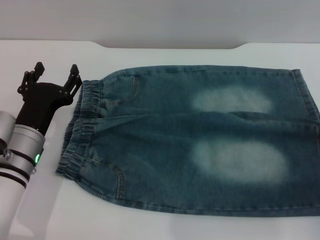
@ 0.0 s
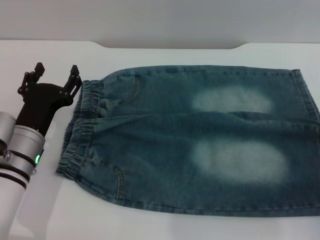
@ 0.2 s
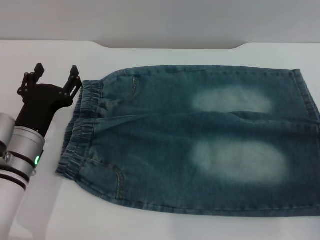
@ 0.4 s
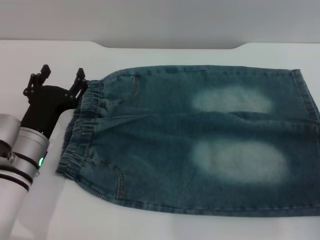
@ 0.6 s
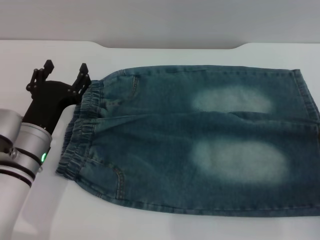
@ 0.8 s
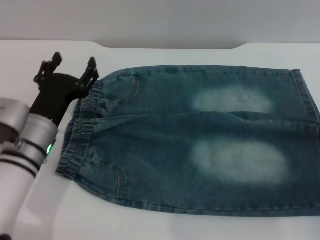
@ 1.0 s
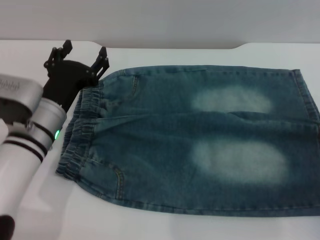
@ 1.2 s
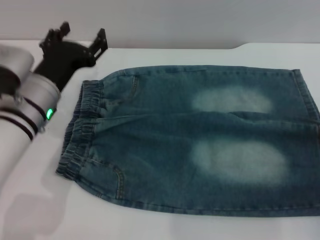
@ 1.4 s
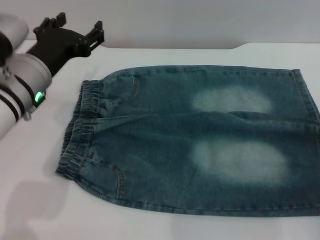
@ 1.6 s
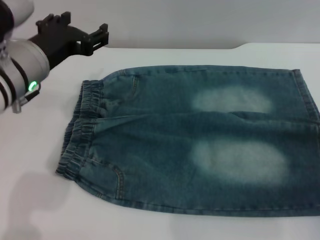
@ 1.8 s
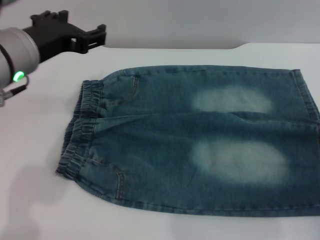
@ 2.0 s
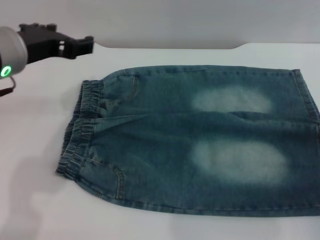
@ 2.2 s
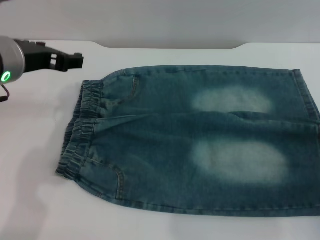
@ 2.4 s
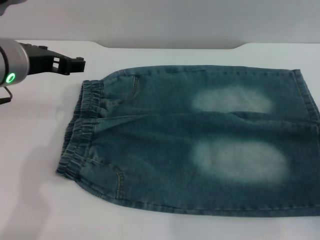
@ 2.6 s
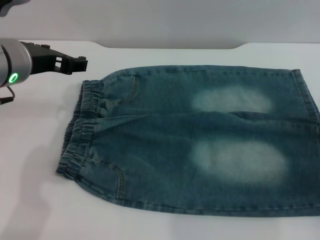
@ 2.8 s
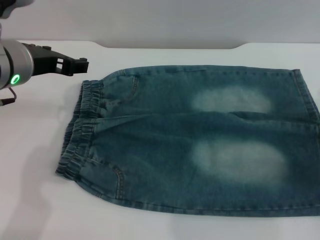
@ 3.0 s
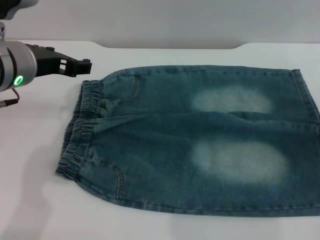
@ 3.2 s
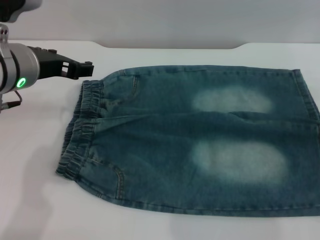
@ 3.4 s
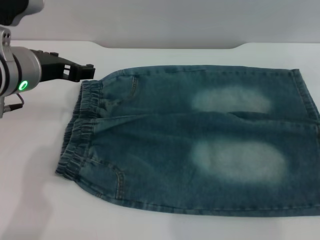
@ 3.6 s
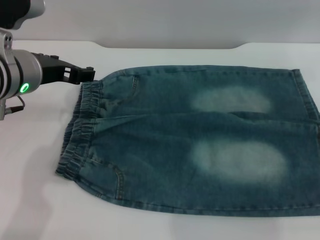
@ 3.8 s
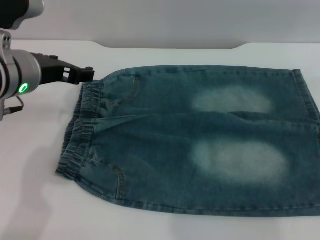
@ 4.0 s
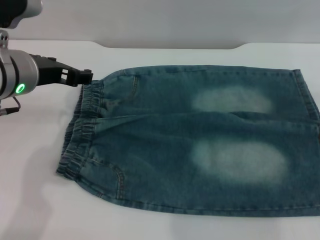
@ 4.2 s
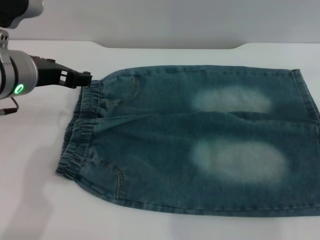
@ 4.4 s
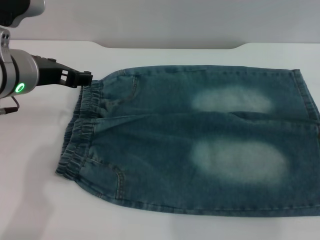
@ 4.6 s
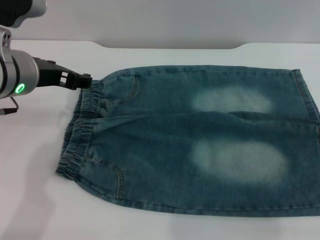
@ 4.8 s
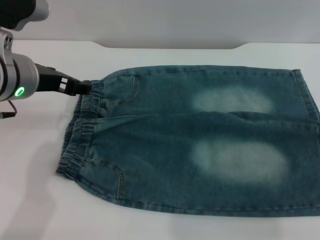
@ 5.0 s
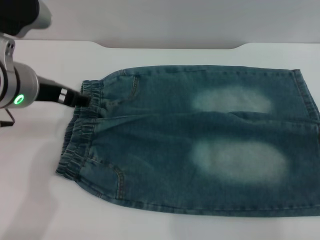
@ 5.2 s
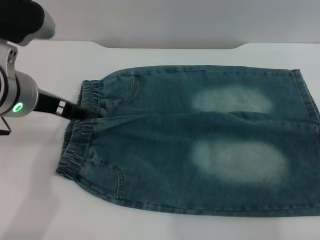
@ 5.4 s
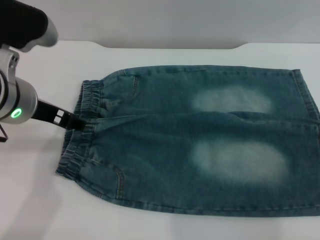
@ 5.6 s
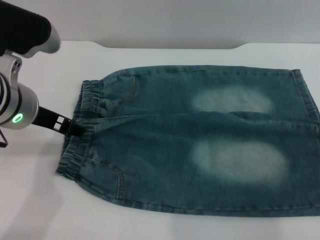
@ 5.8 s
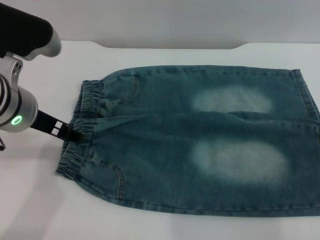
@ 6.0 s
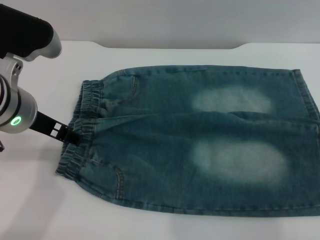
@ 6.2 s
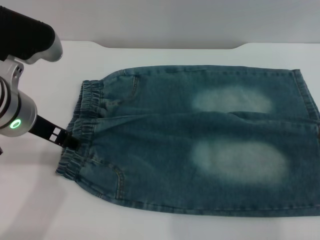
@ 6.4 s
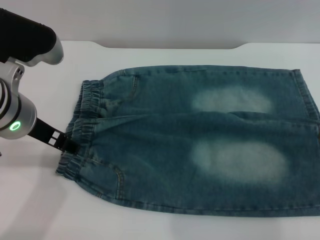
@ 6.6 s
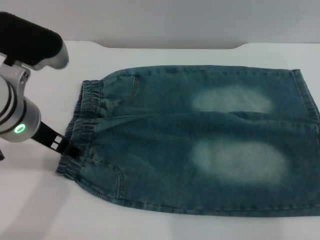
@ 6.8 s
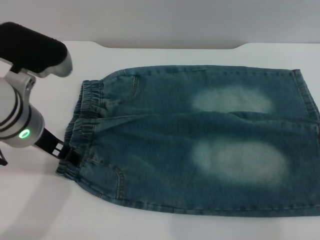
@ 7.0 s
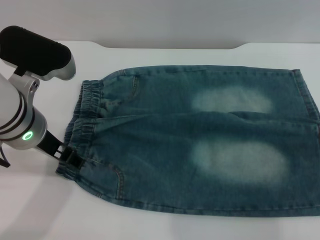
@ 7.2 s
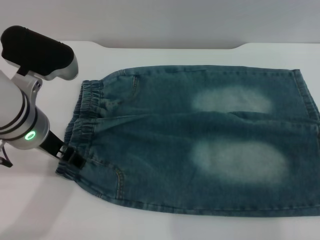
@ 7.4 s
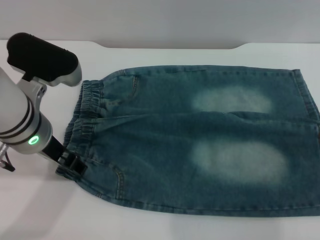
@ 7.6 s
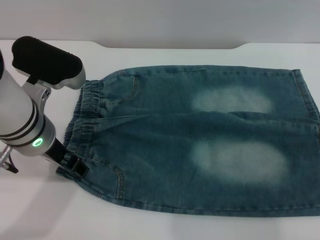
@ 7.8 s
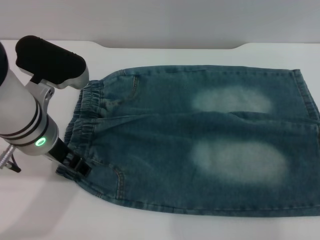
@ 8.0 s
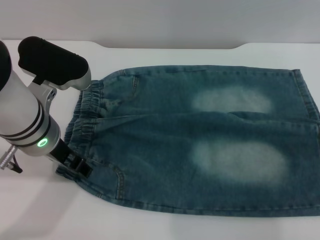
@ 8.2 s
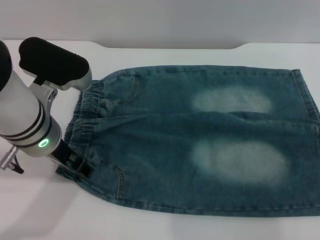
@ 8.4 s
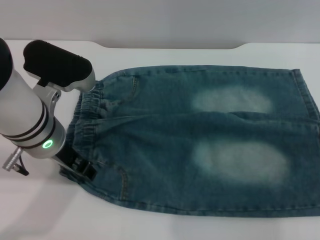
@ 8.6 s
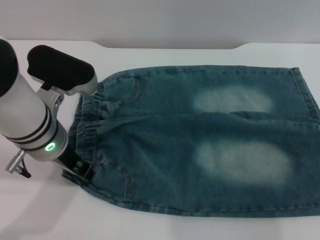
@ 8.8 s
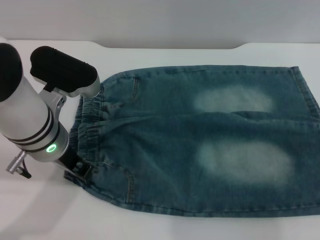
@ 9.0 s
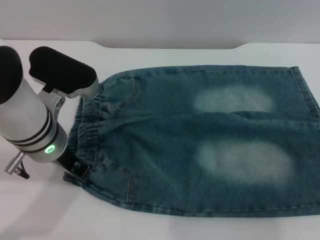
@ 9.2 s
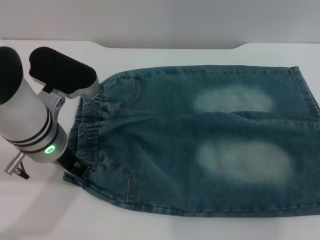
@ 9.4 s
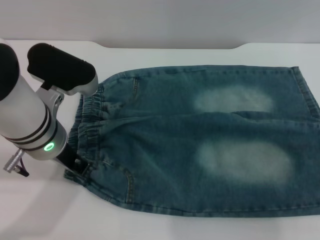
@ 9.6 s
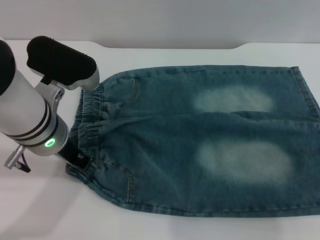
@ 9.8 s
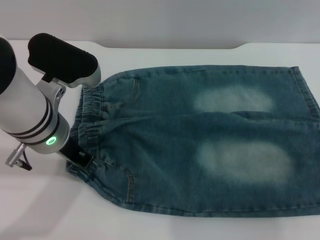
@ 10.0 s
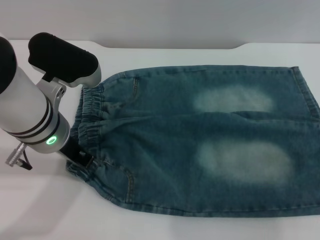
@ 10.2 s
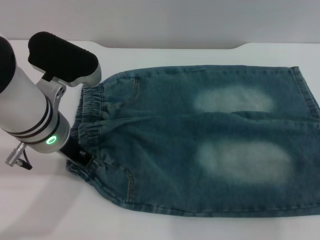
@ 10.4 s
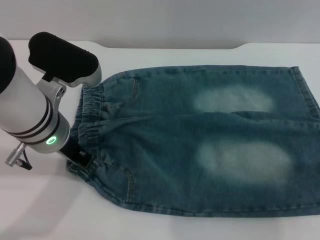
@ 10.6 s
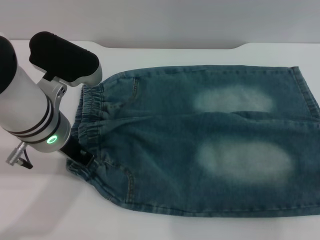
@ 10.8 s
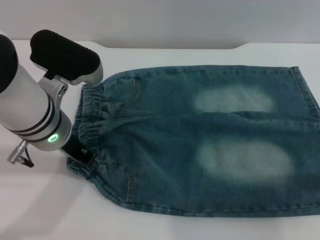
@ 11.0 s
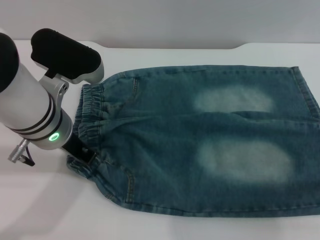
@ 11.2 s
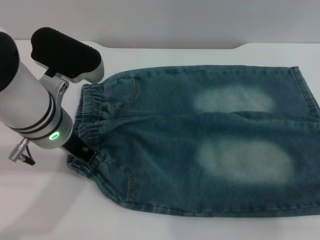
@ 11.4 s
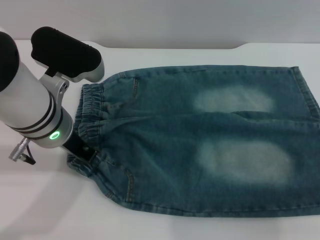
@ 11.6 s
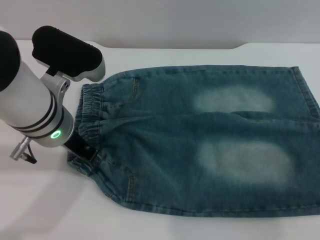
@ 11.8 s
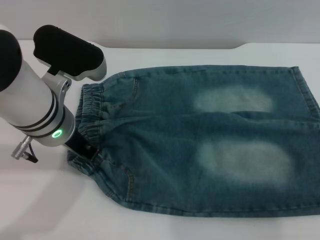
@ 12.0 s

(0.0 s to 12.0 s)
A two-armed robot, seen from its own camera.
0.0 s - 1.6 s: The left gripper goes some 10 cm upward.
1.6 s - 3.0 s: The left gripper is displaced upward by roughly 5 cm.
6.0 s - 9.0 s: The grippers stay close to where they were, moving slightly.
9.0 s - 10.4 s: The left gripper closes.

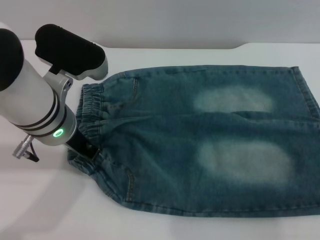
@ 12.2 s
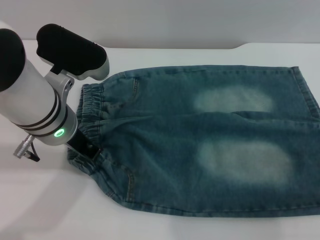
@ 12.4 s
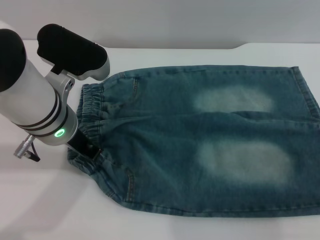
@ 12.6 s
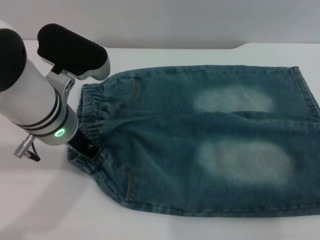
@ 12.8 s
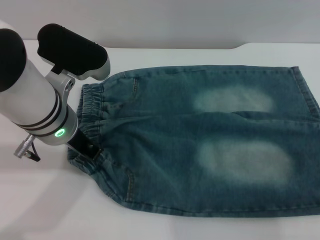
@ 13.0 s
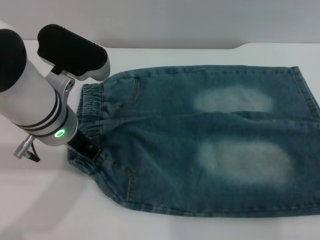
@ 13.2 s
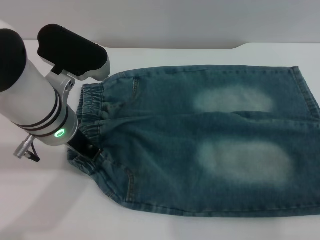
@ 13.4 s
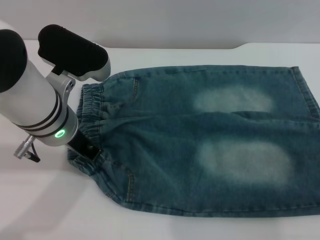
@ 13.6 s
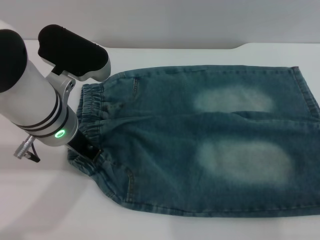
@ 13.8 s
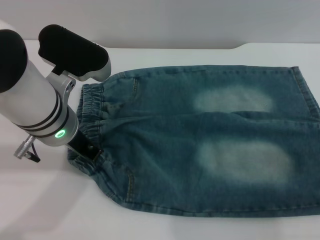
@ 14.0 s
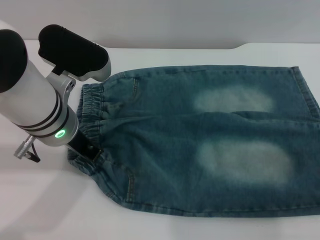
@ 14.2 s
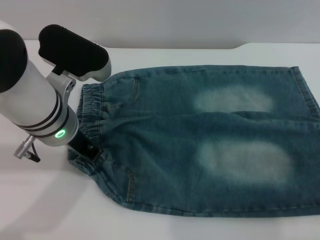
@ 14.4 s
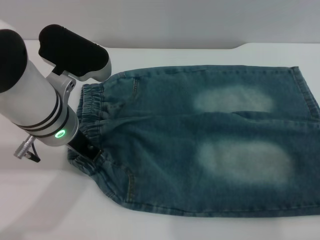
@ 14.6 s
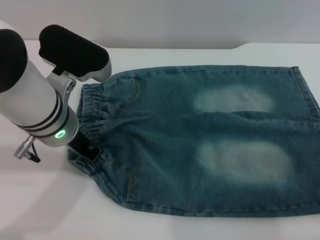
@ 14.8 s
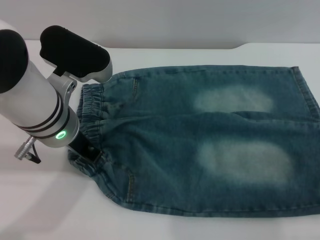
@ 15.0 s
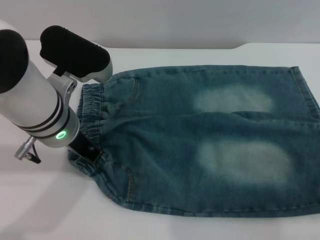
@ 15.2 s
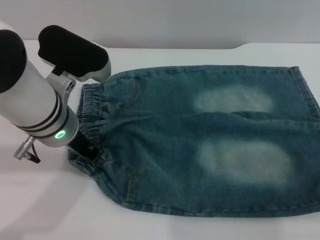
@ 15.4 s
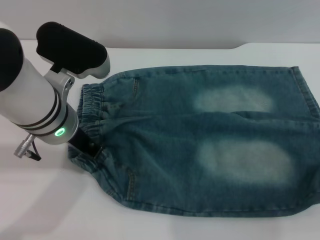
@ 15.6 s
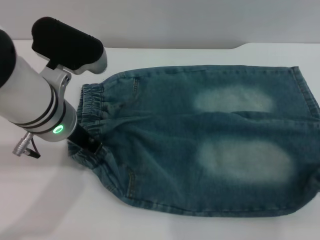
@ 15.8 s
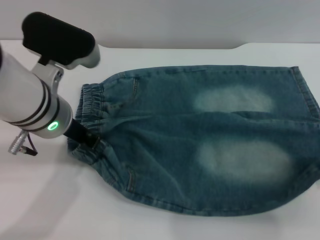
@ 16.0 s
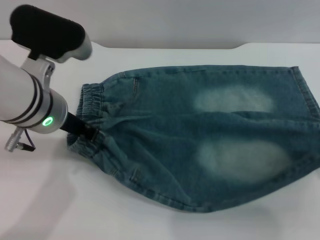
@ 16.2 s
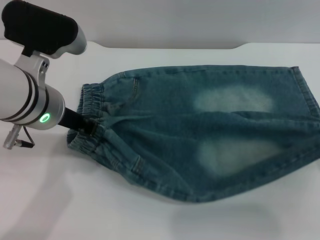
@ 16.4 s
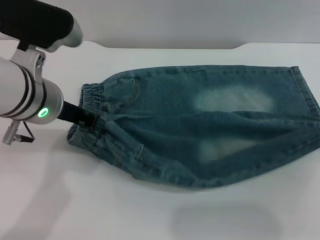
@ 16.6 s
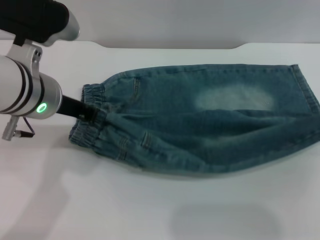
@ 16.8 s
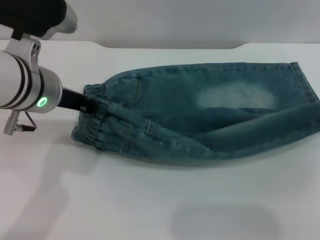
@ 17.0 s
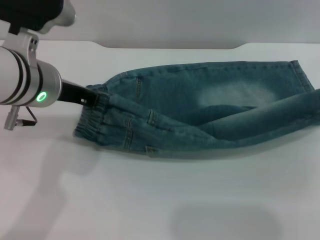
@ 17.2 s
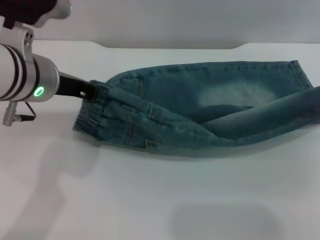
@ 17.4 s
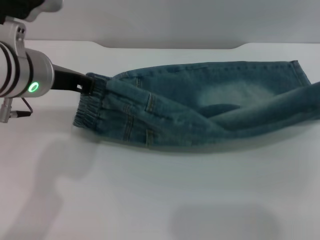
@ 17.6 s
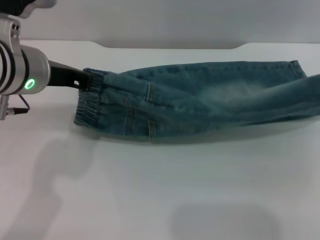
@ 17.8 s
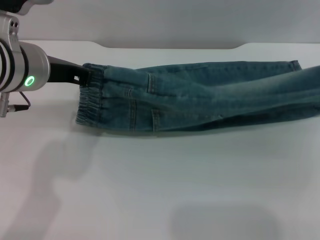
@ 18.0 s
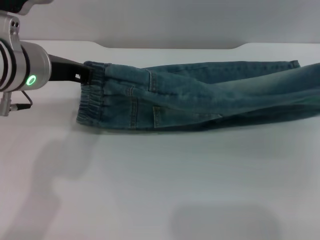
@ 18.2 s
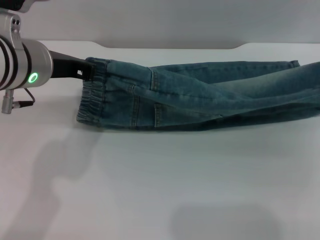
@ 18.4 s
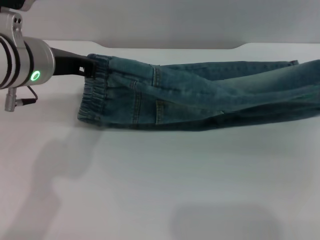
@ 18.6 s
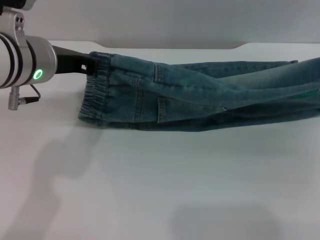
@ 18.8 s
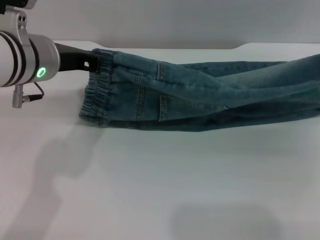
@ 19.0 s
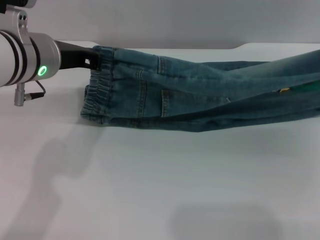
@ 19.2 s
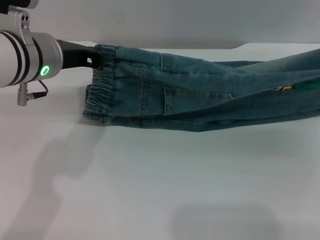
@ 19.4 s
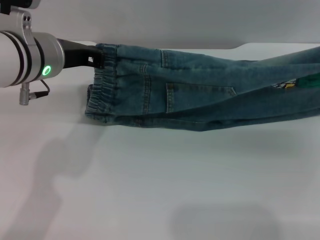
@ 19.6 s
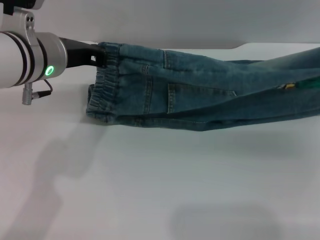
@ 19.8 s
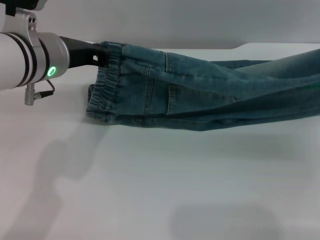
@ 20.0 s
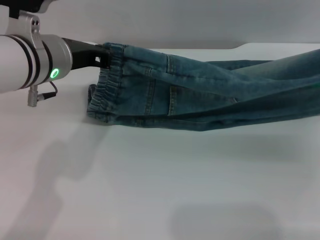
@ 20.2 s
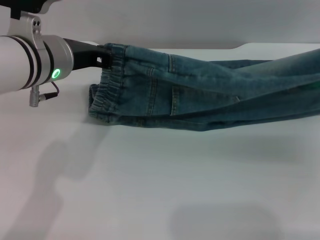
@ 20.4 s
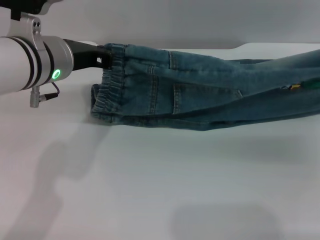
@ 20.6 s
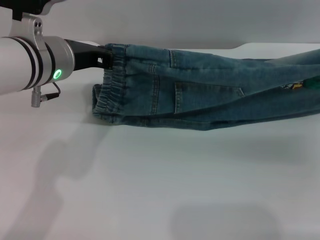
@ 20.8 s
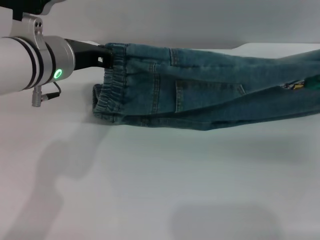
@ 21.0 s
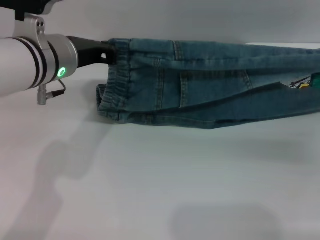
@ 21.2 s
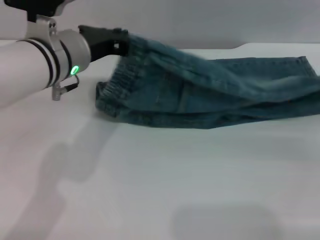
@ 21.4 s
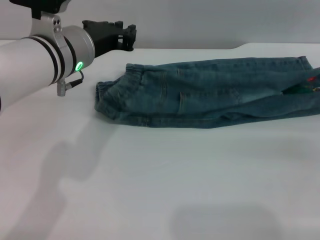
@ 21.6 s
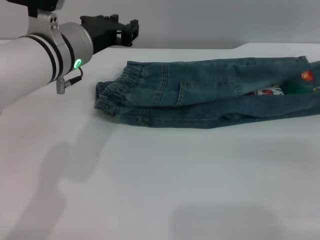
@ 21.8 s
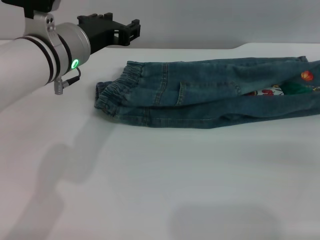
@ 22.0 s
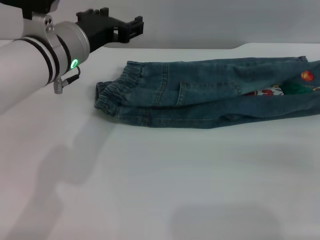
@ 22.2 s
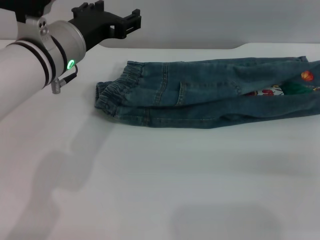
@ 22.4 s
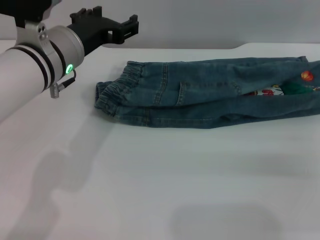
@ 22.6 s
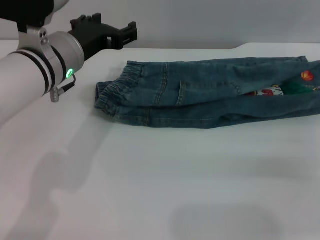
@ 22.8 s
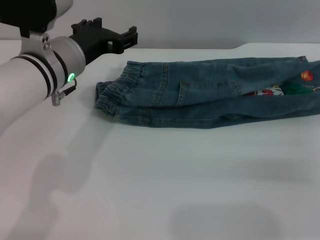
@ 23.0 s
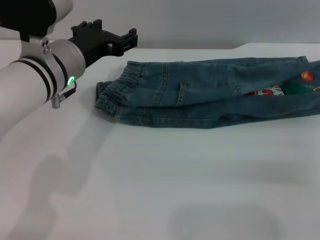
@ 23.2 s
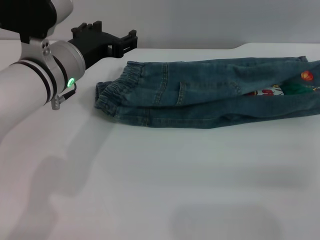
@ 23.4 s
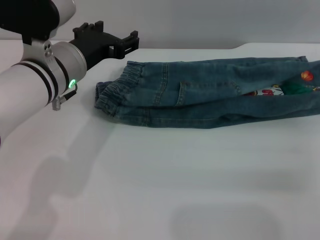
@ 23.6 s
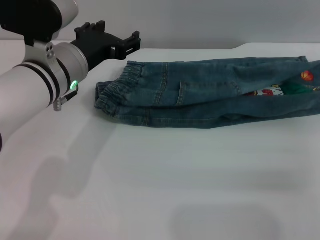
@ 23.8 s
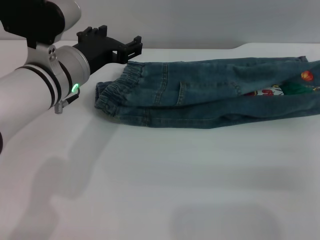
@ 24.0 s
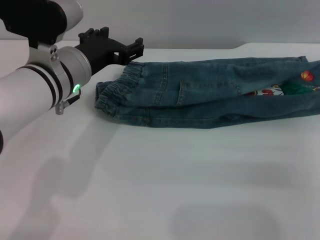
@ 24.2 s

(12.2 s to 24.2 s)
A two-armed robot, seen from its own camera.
Step, 12.2 s - 21.8 s: Fold the bottom of the pants upward with both grippers.
12.2 s - 13.8 s: Neither gripper changes place.
15.2 s - 16.6 s: The right gripper is displaced upward by some 5 cm.
18.2 s - 19.8 s: The right gripper ends up about 5 cm from where it was.
19.8 s - 21.2 s: The grippers move only a little.
21.2 s - 22.6 s: The right gripper opens. The left gripper opens up.
22.6 s - 24.2 s: There are only small adjustments of the grippers.
